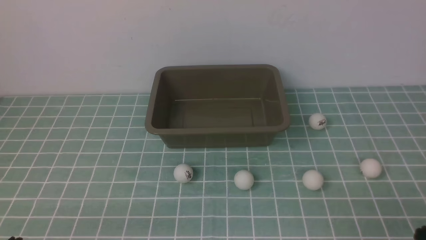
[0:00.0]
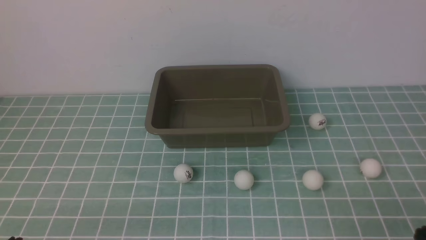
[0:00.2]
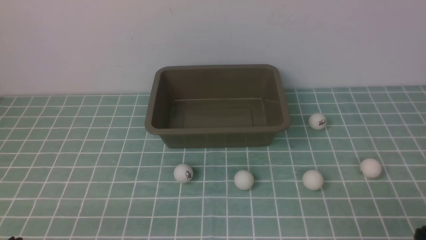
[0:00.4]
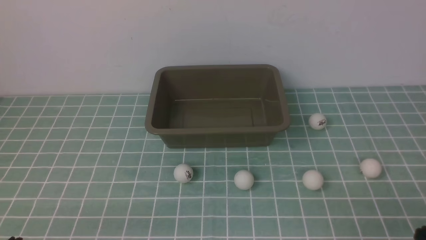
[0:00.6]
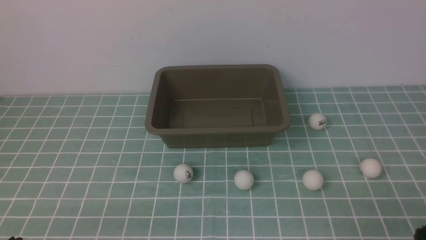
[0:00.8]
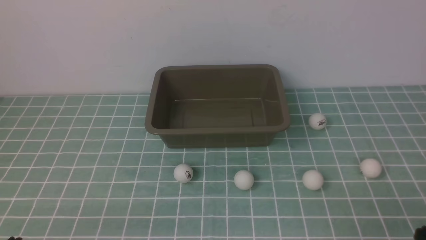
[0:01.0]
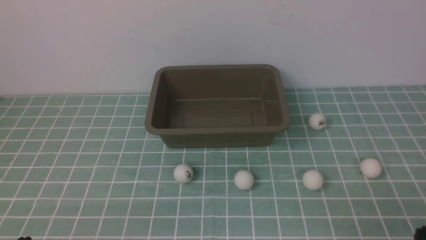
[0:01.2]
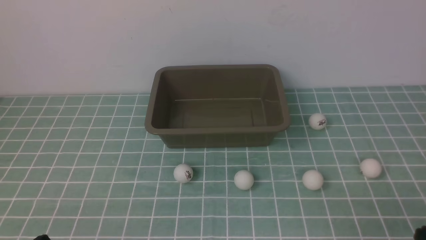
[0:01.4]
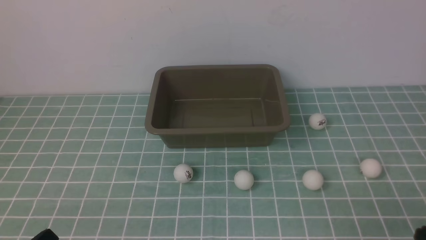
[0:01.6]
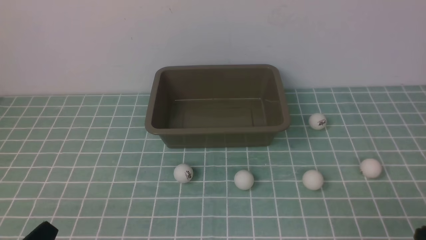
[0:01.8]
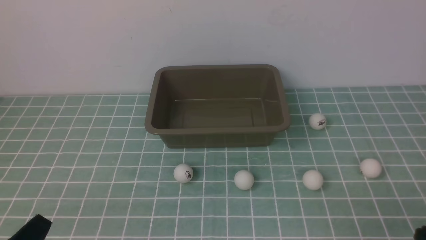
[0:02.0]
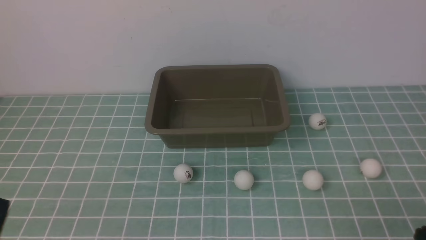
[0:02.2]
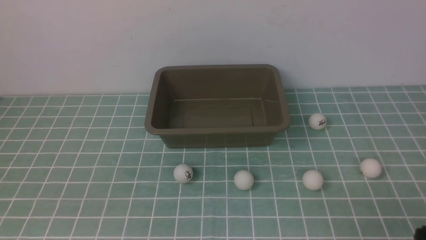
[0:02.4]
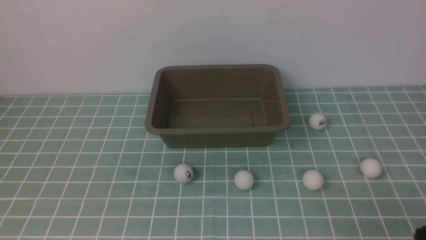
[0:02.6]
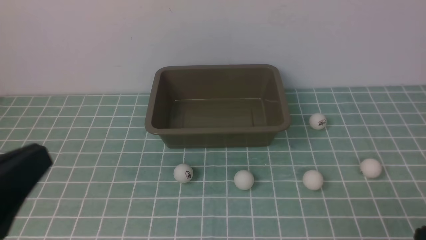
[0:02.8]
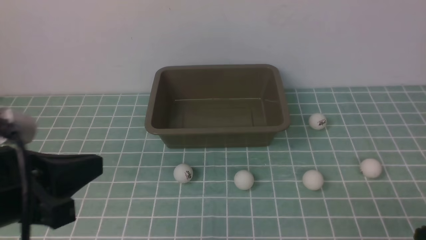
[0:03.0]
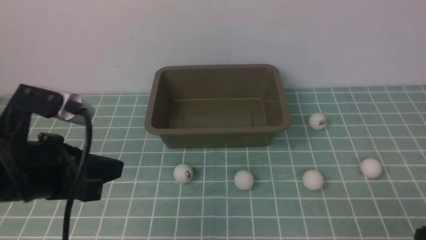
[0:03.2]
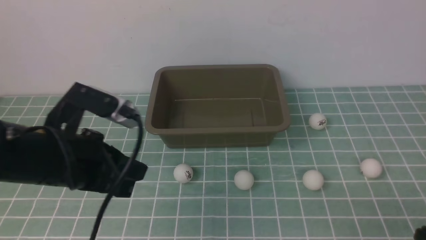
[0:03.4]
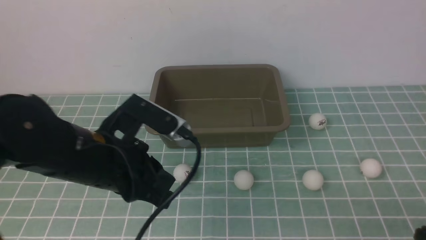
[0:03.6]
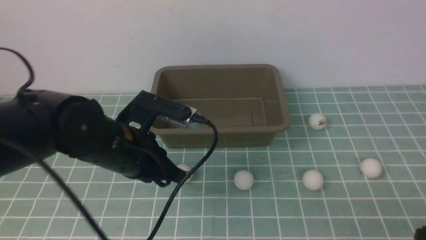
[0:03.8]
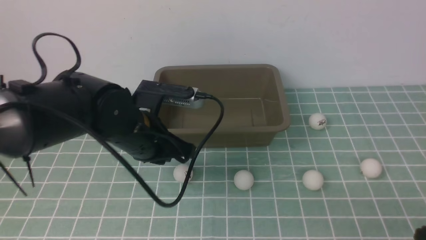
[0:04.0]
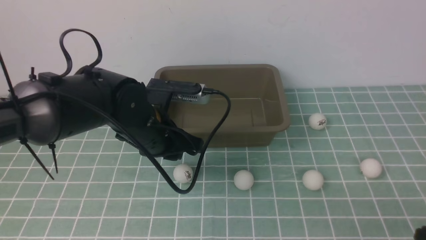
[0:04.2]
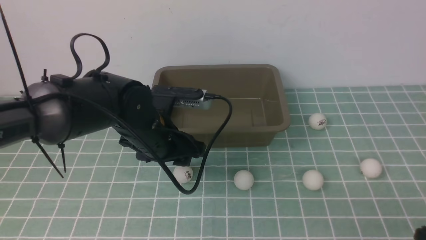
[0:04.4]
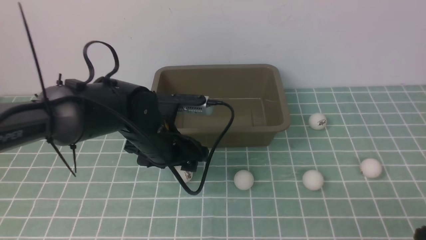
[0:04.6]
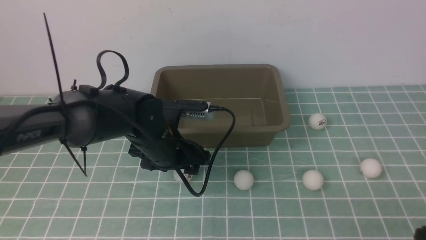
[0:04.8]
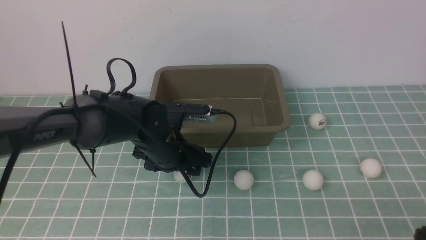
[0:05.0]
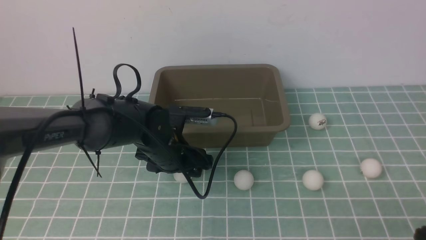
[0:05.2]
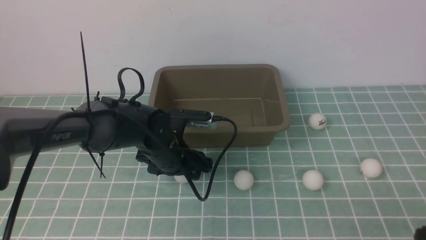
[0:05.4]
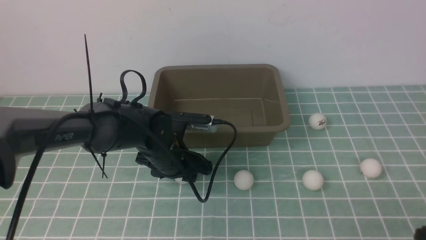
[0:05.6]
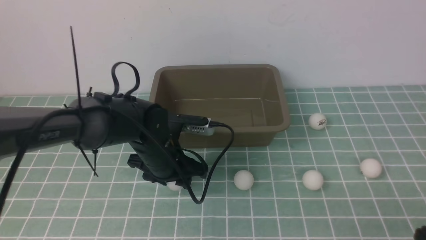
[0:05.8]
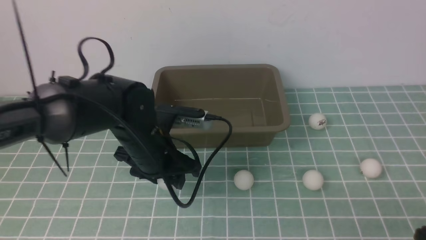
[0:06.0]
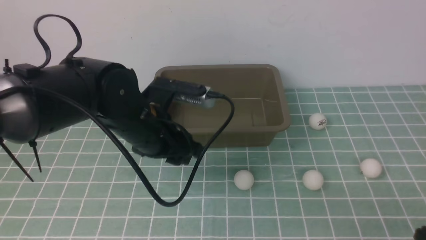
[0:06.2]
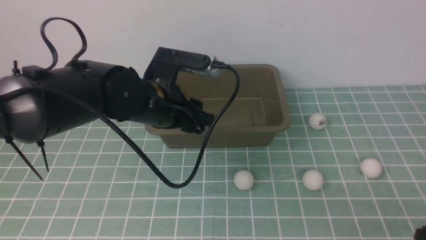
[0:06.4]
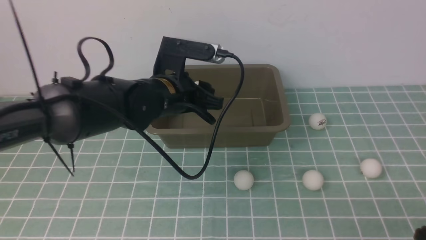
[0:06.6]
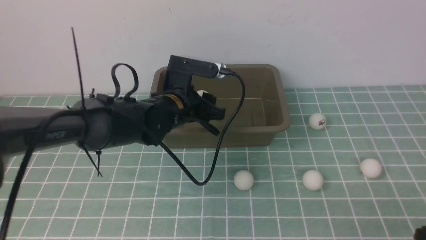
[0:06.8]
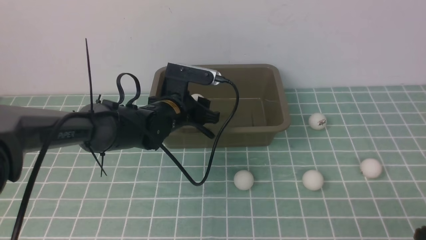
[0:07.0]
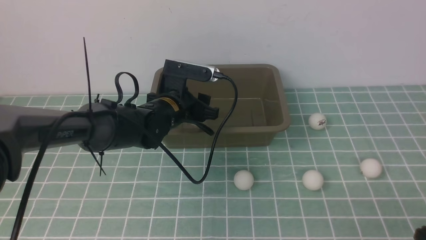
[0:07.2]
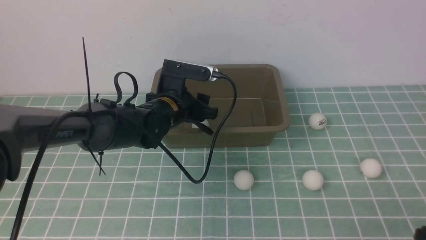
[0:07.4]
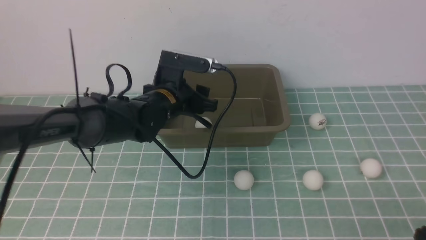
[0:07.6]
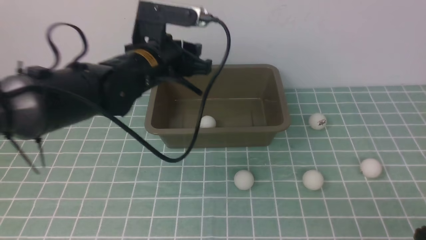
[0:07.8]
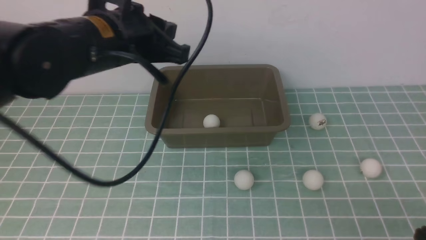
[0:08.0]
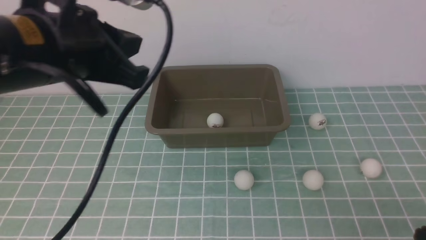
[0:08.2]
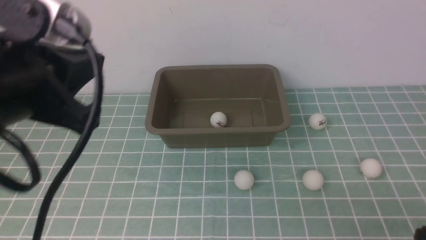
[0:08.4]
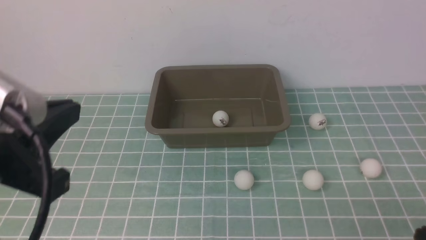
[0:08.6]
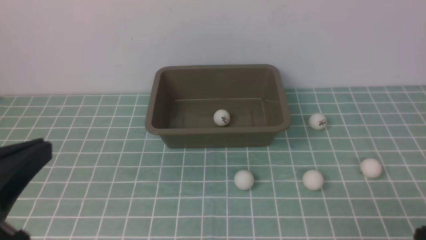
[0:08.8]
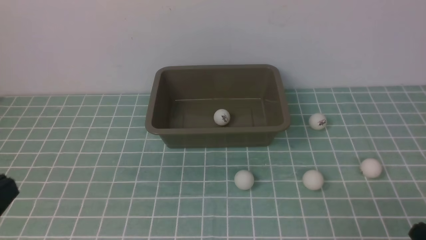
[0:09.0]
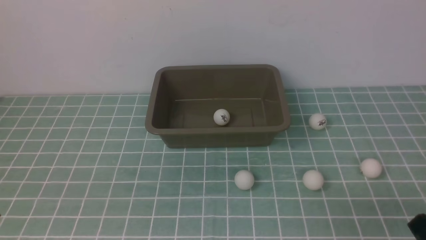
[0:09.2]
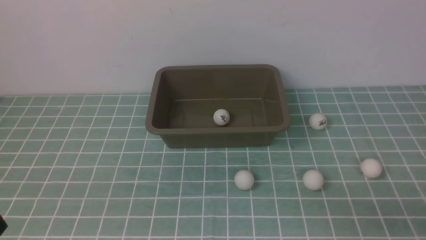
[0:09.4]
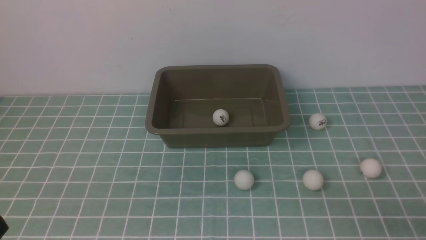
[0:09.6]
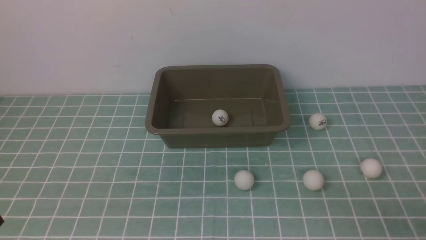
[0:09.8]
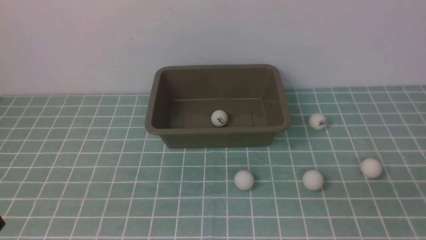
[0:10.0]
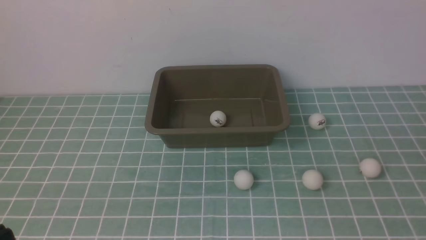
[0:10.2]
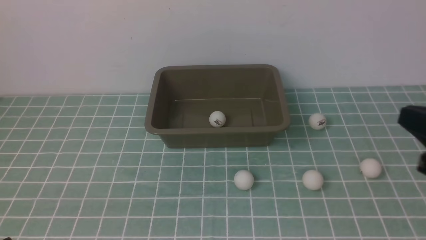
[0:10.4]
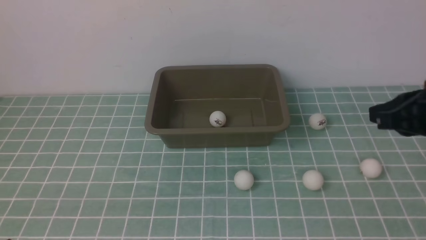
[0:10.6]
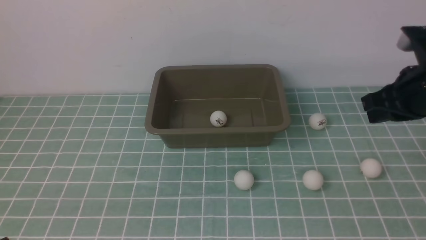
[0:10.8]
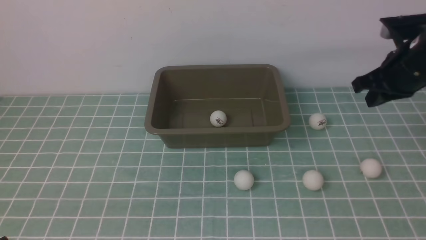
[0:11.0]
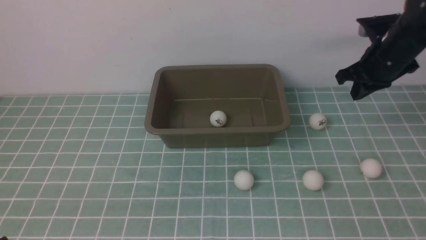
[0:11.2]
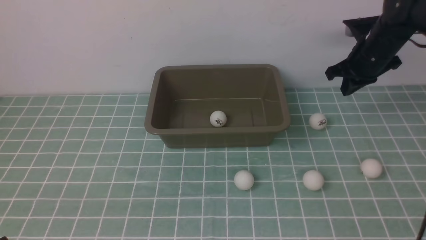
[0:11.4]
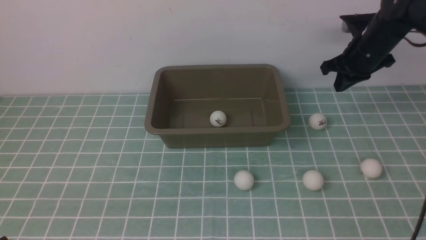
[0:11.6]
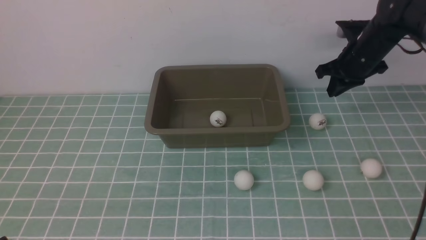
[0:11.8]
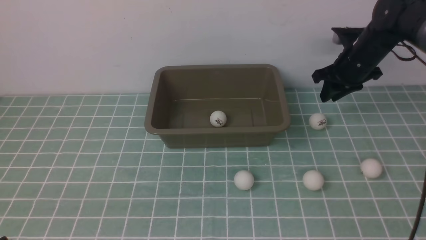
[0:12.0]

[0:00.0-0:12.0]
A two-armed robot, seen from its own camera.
Step, 0:00.0 to 0:05.8: use the left arm to clamp the table tennis ball closest to it.
Step, 0:06.0 to 0:07.2: use the left arm to put the table tennis ball into the box.
0:01.6 to 0:03.0: The left gripper moves upward and forward, approximately 15 cm.
0:03.0 to 0:04.4: The left gripper heads forward, downward and to the right, covering approximately 25 cm, and opens.
0:04.4 to 0:06.0: The grippers stay close to where they were, moving slightly.
0:06.0 to 0:07.6: The left gripper moves forward, approximately 10 cm.
0:07.6 to 0:09.0: The left gripper heads backward and to the left, covering roughly 40 cm, and closes its fingers.
0:09.0 to 0:10.4: The right gripper is displaced upward and forward by about 15 cm.
0:10.4 to 0:12.0: The right gripper shifts some 35 cm forward, and opens up.

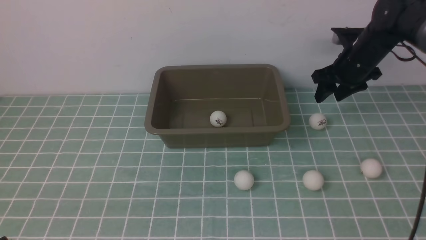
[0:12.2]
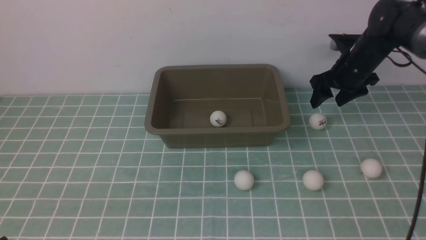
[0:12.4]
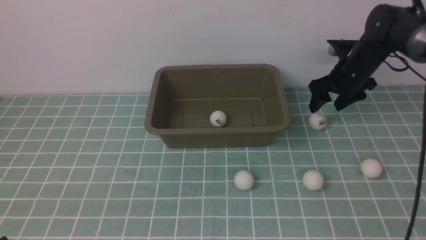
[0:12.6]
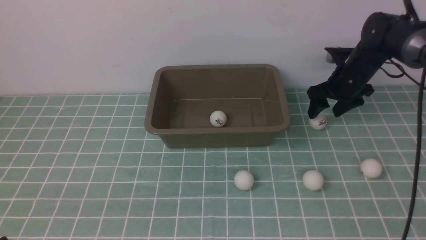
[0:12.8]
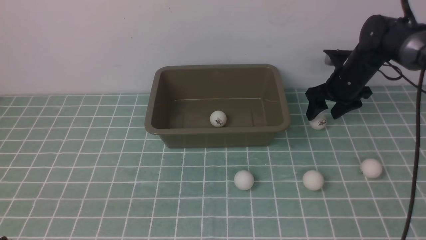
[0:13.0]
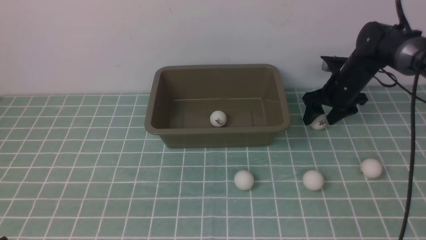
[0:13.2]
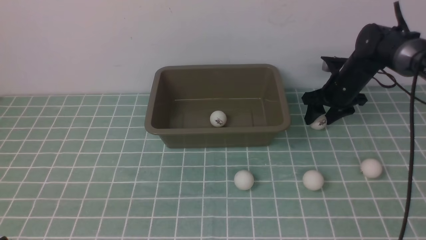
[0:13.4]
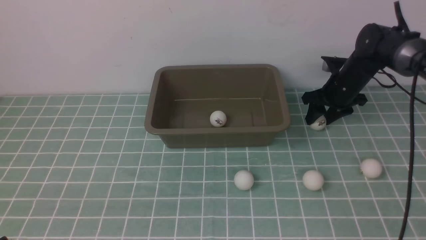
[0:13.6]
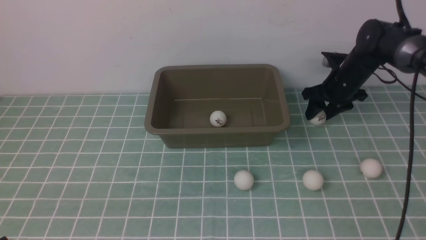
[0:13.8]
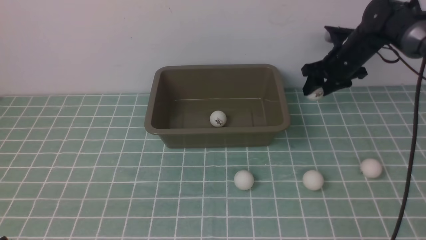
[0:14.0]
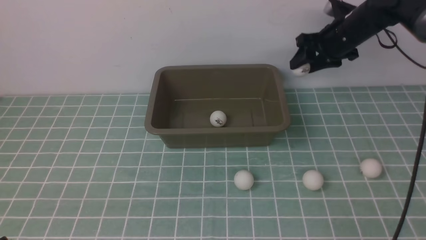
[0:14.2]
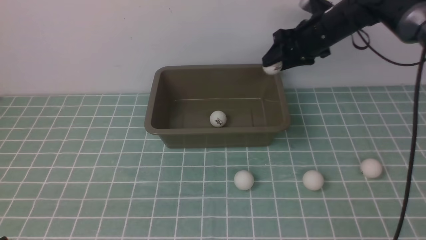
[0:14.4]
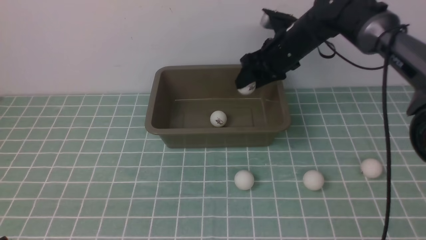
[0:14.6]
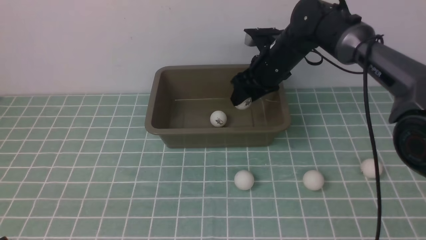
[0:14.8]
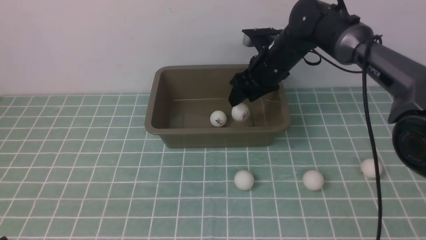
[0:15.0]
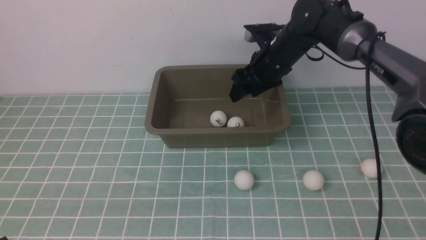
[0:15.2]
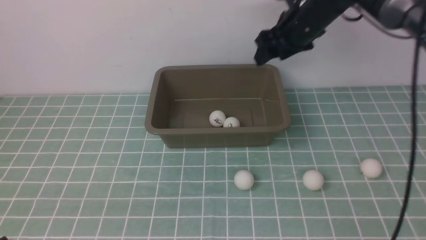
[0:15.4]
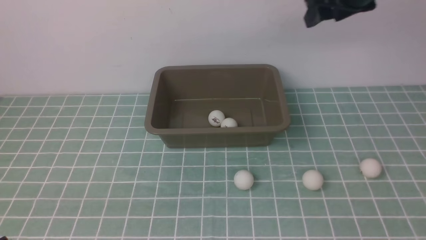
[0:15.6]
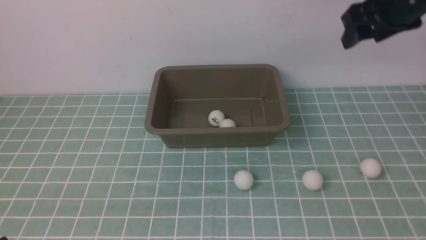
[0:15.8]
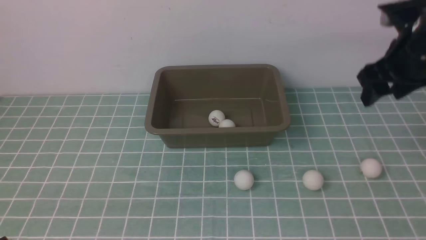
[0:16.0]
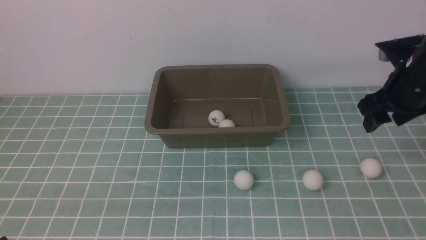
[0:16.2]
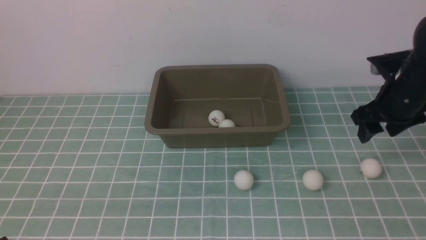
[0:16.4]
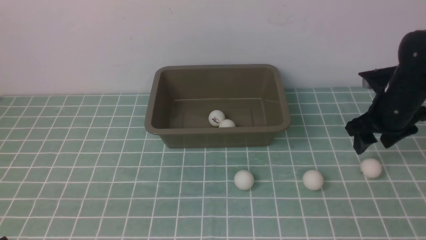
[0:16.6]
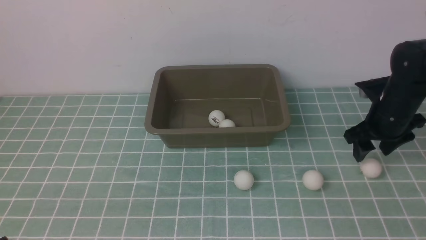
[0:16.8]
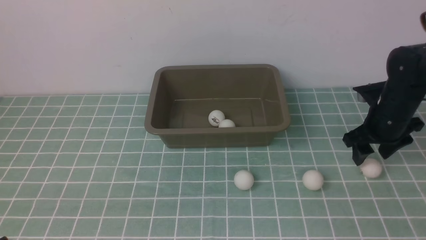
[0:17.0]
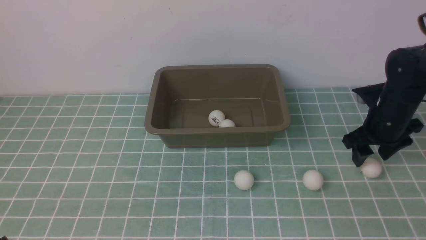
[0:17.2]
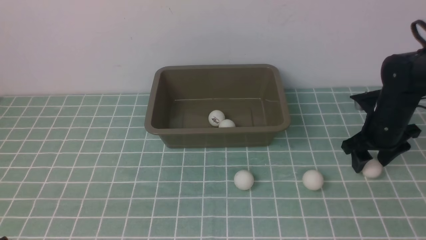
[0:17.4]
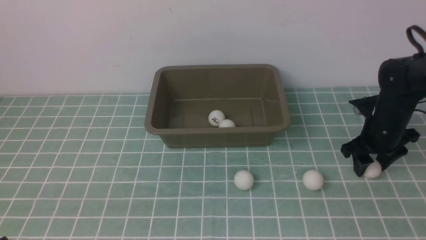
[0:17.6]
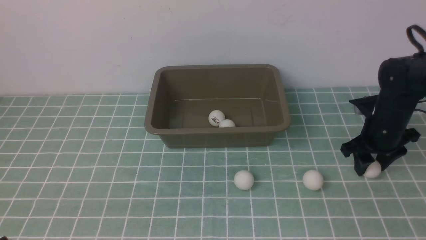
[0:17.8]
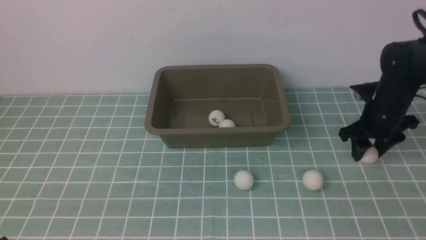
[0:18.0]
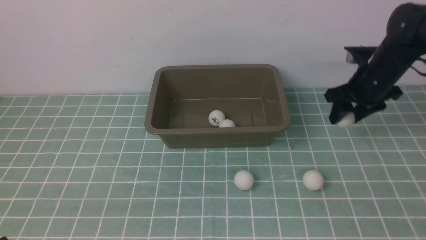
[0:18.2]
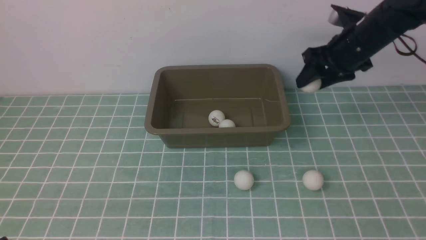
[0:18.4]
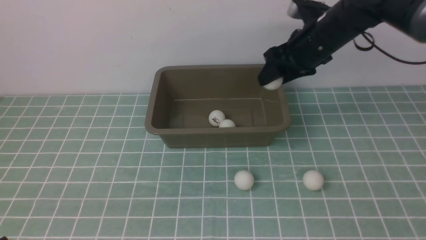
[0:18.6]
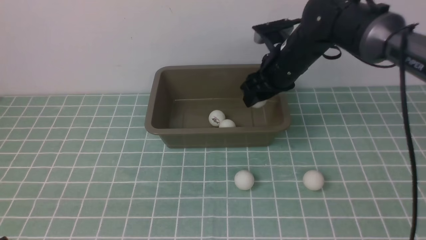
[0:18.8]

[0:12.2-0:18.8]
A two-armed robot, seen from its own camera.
Step, 0:14.2 to 0:15.0: use the right arm to put the table tennis ball into the box.
Step, 0:15.2 to 0:18.0: use the right arm to clamp the table tennis ball closest to it.
0:12.2 to 0:13.8: The grippers make only small movements.
0:13.8 to 0:15.4: The right gripper travels upward and to the left by some 15 cm.
0:15.4 to 0:17.2: The right gripper shifts roughly 20 cm to the right, downward and backward.
0:17.2 to 0:18.8: The right gripper is displaced to the left and upward by some 20 cm.
